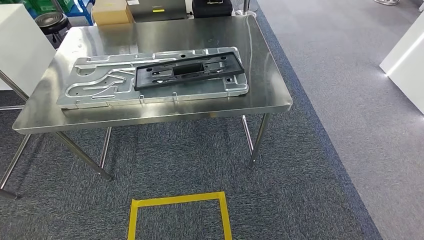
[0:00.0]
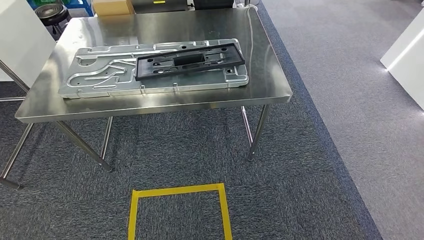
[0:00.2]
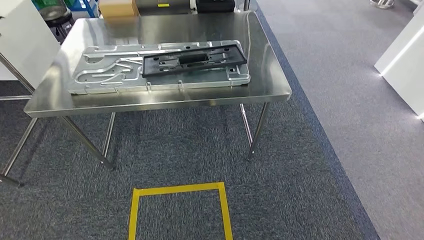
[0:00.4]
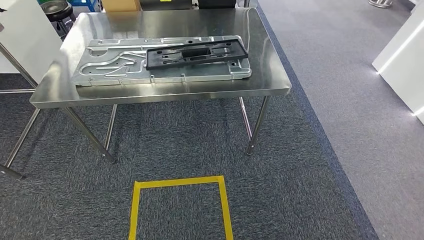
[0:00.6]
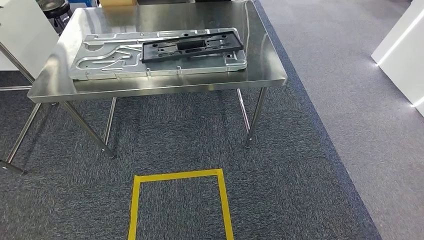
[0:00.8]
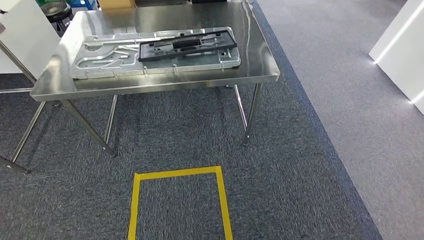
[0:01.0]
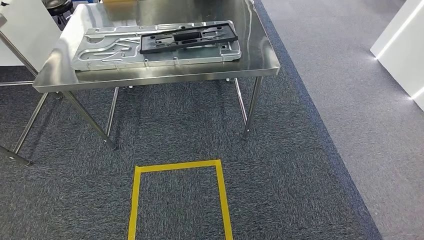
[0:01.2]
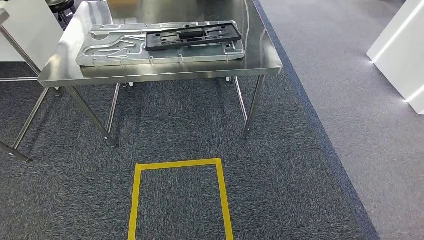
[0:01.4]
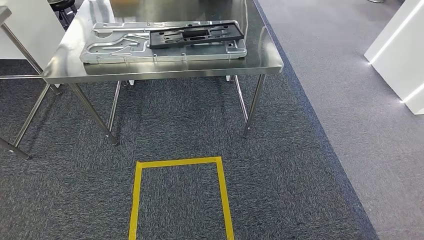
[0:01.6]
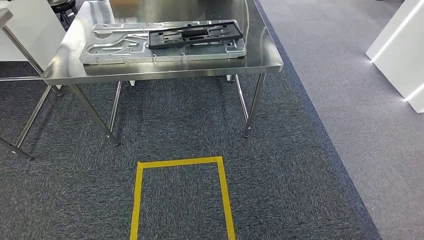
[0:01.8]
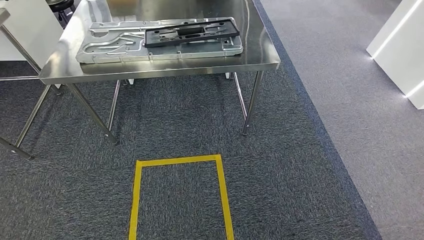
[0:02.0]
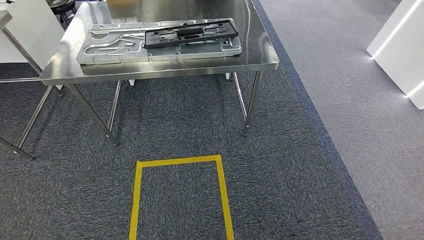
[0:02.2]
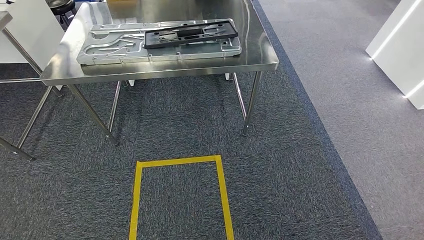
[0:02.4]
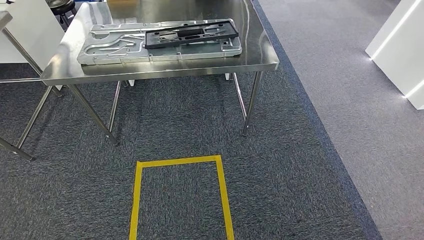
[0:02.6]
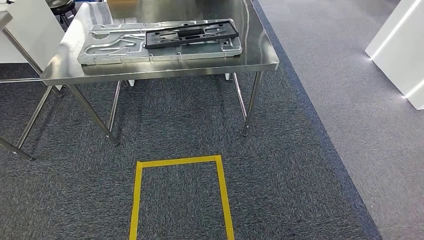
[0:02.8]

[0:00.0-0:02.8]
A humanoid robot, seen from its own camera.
Step, 0:00.0 to 0:02.8: Return to the initial position at the shelf.
0:01.4 to 0:02.8: The hands move only a little.

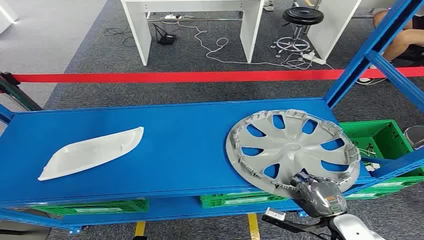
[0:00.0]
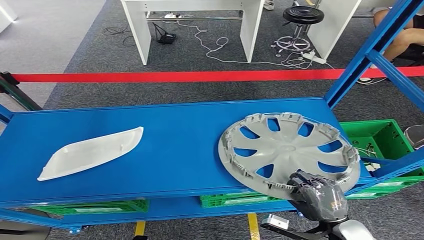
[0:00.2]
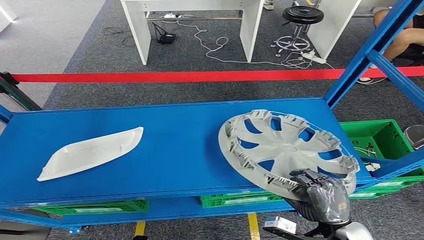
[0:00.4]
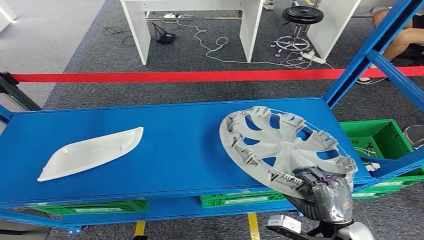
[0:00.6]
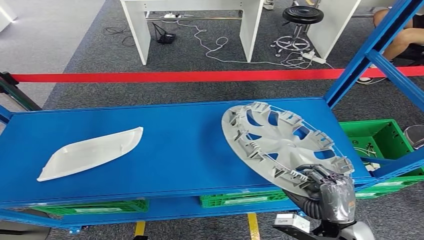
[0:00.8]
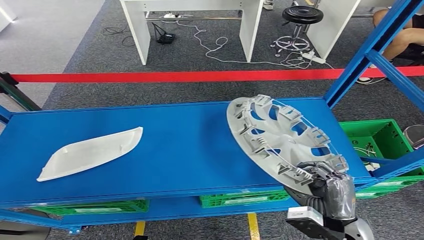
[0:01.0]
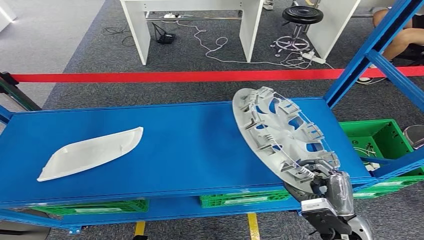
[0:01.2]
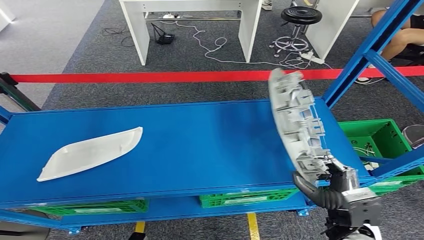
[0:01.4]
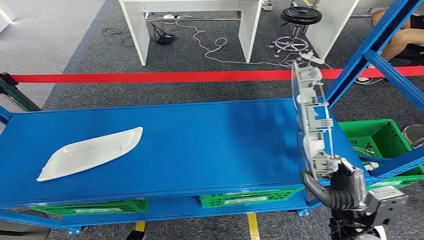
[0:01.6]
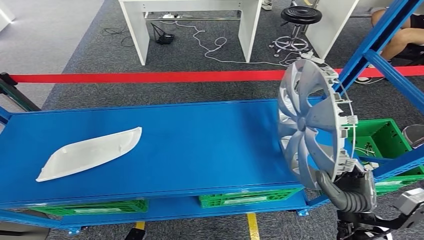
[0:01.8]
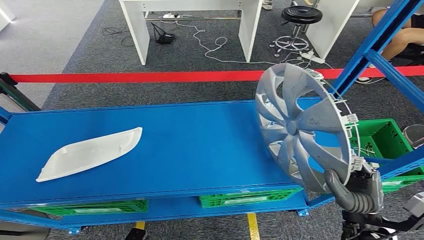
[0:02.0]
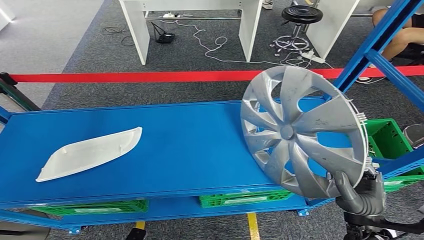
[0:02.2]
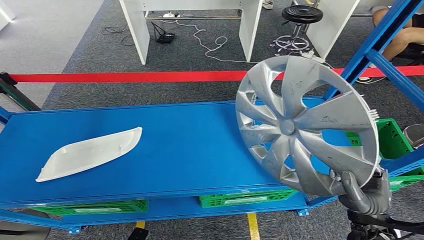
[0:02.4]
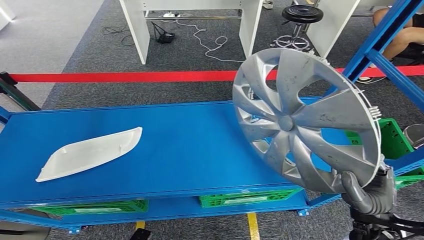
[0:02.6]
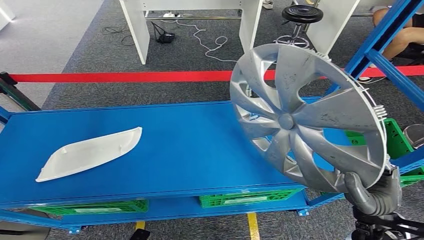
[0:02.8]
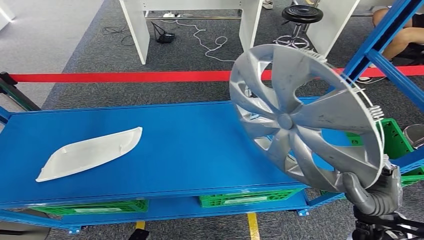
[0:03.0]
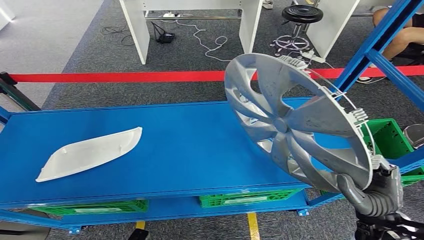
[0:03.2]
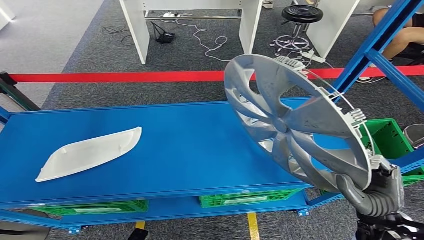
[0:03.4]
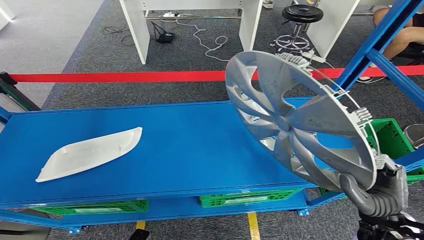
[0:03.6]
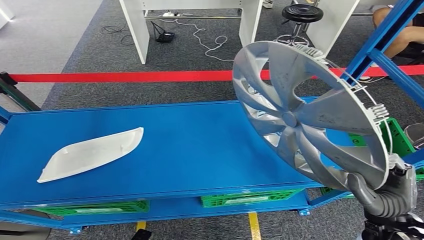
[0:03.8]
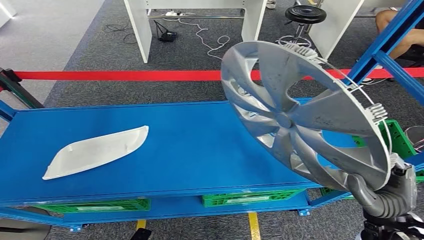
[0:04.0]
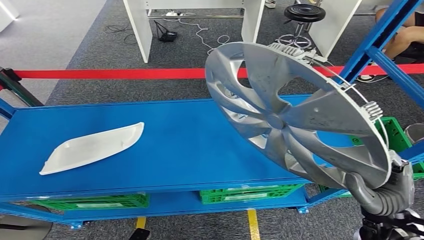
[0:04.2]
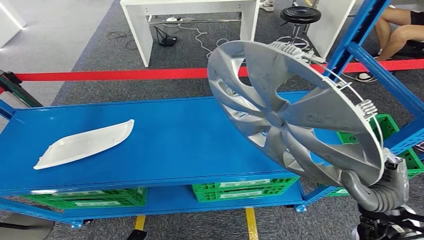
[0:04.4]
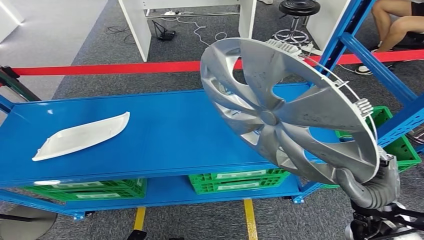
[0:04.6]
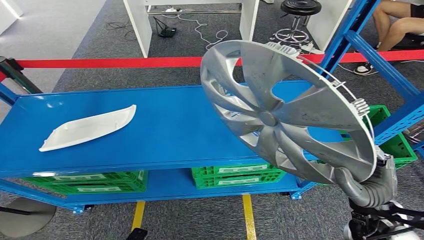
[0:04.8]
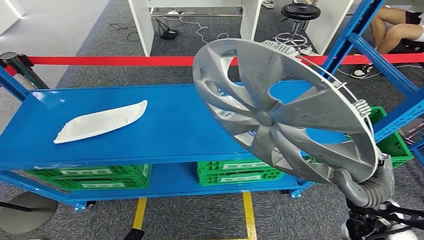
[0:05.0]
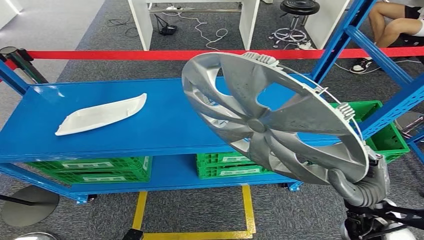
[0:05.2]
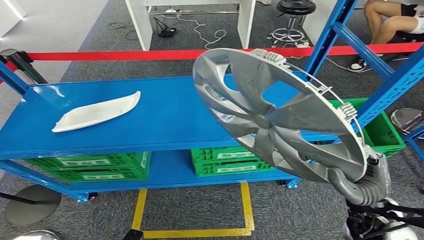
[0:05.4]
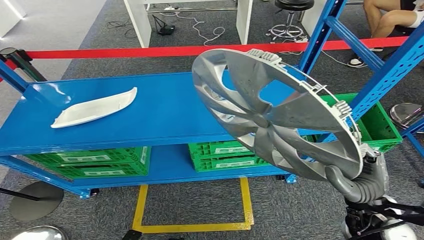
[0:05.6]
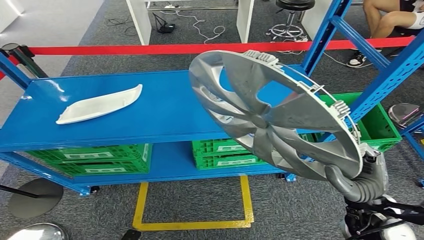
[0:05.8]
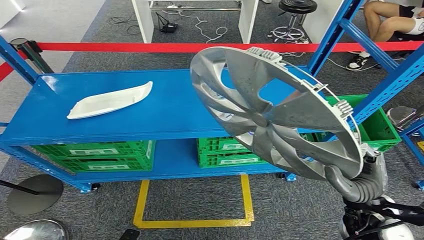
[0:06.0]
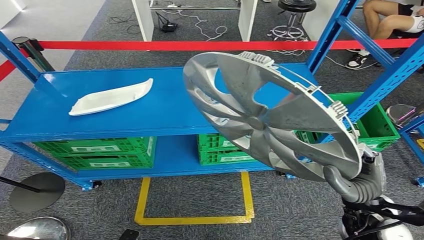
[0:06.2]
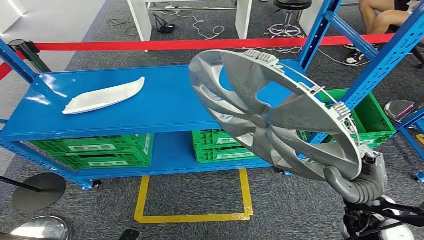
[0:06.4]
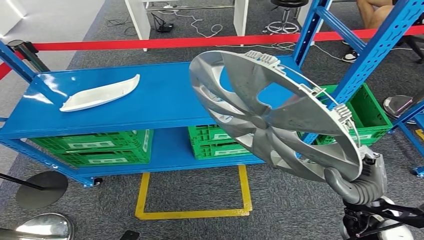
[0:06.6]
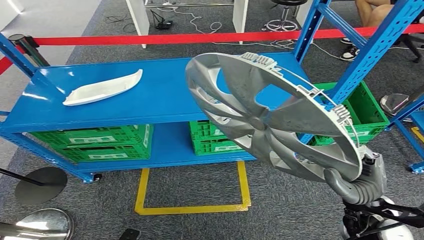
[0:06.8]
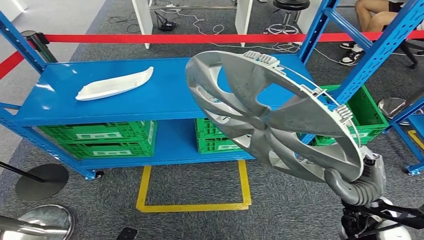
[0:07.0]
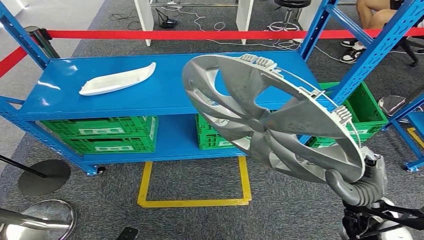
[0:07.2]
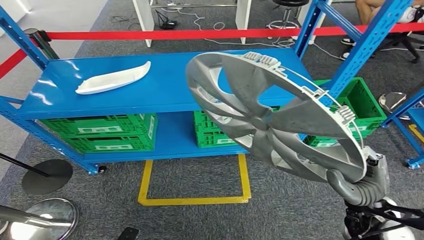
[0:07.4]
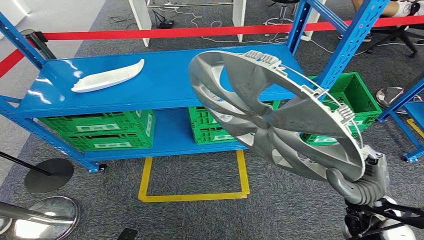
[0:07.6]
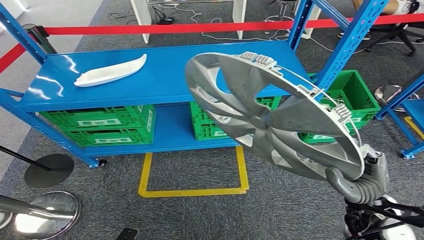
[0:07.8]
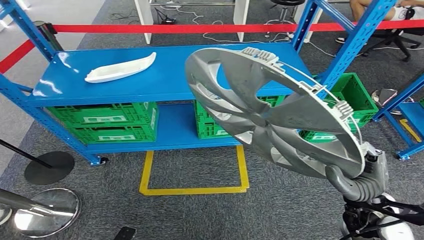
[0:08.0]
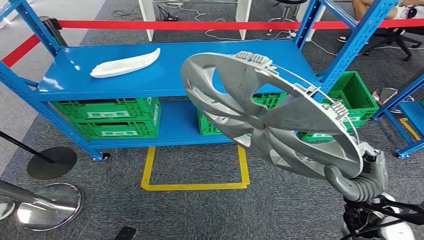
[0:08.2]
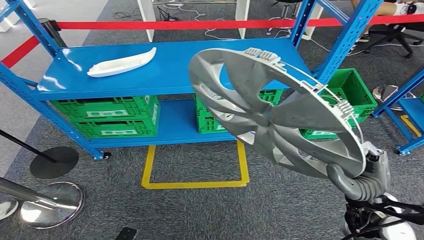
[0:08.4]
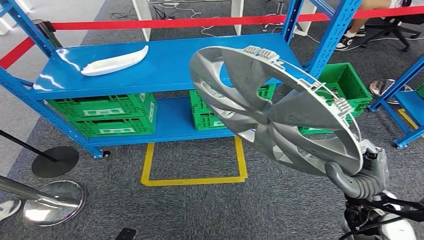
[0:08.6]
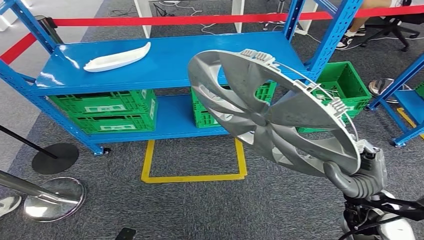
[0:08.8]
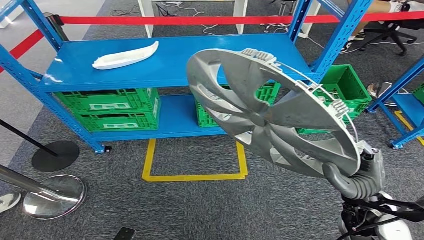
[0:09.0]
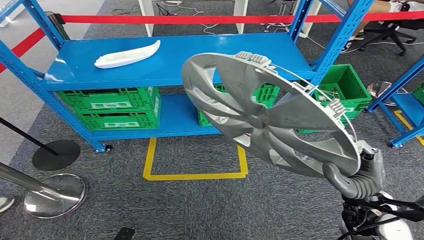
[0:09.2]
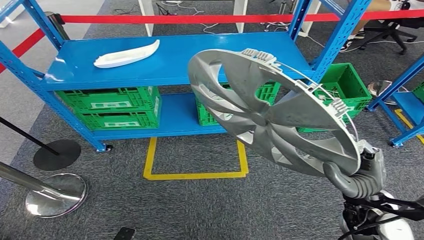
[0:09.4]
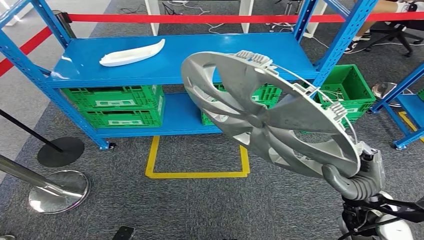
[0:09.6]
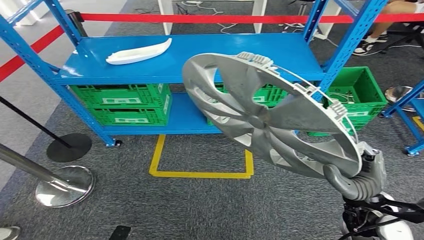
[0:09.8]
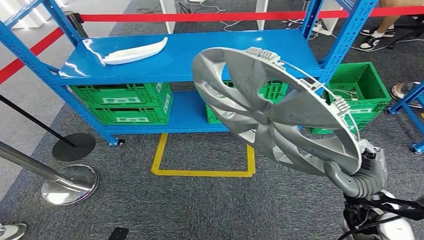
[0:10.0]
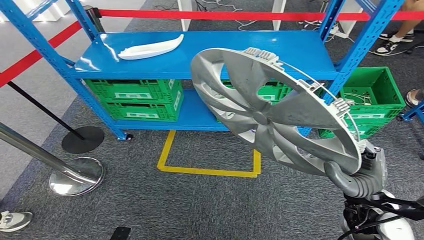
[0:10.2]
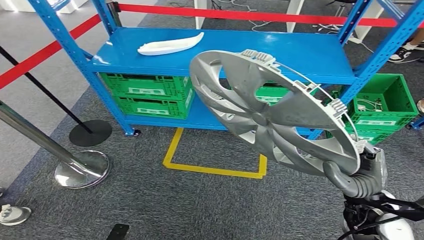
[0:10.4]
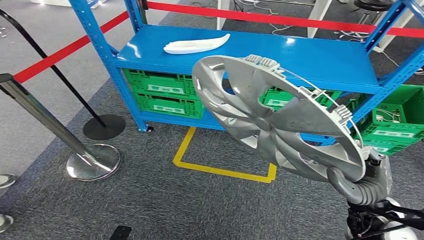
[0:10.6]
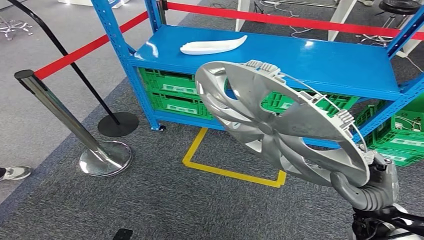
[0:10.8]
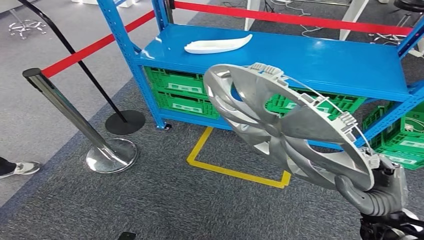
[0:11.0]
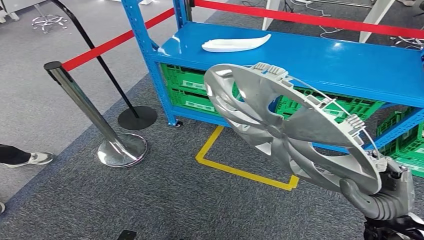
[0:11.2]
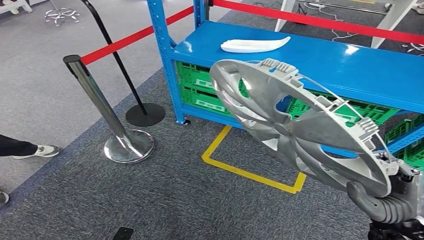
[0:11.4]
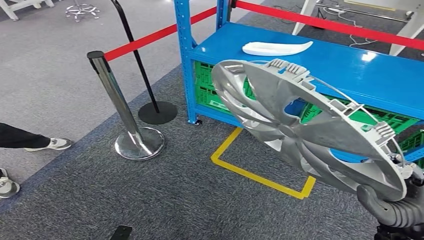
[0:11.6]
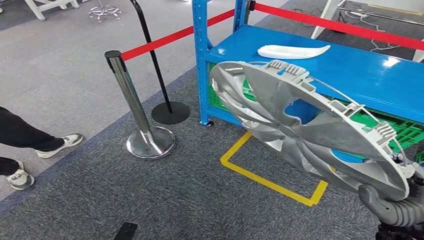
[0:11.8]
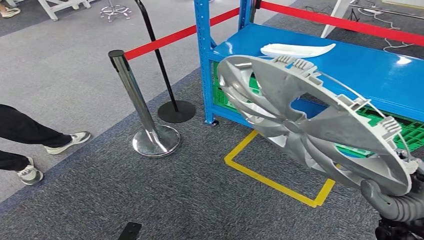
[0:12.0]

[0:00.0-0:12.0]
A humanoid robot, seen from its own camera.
Step, 0:00.0 to 0:04.2: Pick up the small parts from the shelf.
0:01.6 to 0:03.0: The right hand shifts by roughly 5 cm.

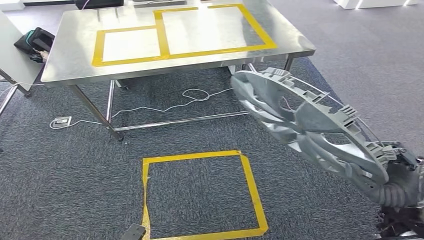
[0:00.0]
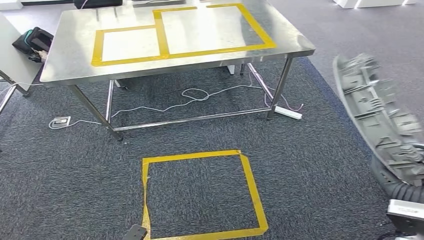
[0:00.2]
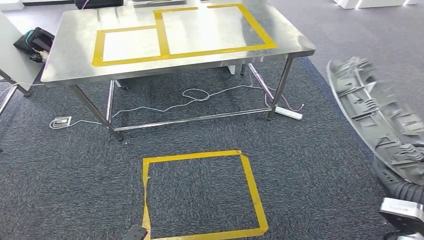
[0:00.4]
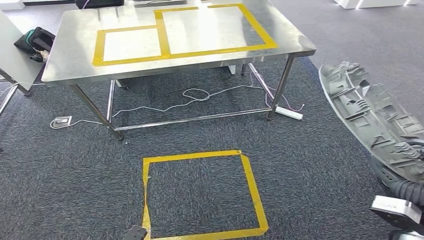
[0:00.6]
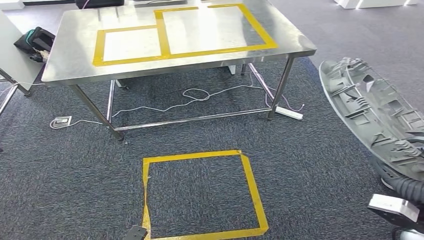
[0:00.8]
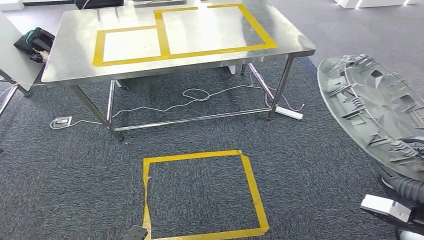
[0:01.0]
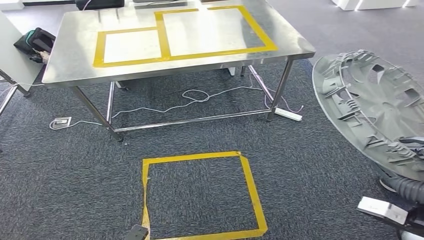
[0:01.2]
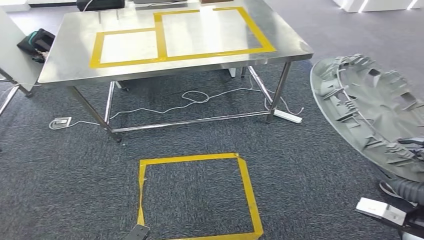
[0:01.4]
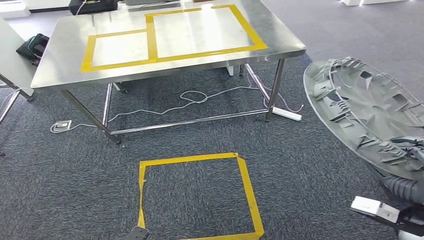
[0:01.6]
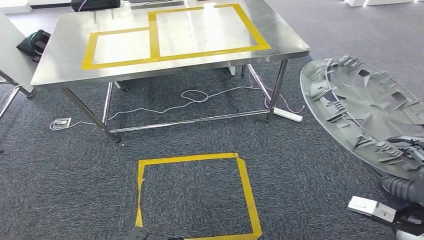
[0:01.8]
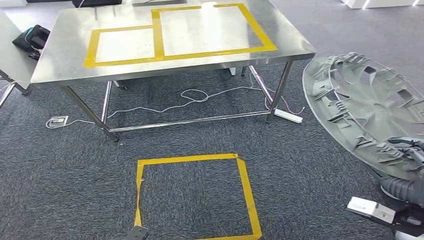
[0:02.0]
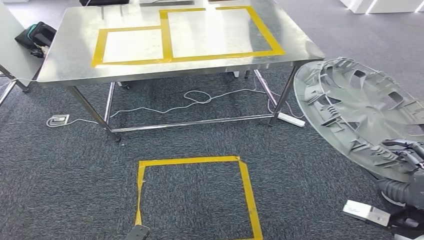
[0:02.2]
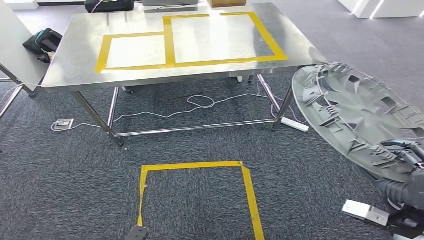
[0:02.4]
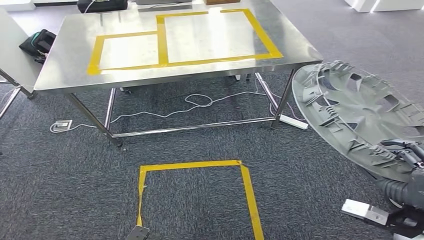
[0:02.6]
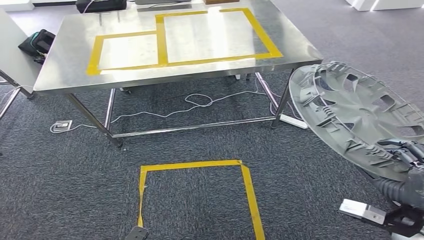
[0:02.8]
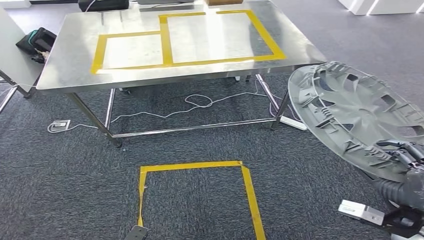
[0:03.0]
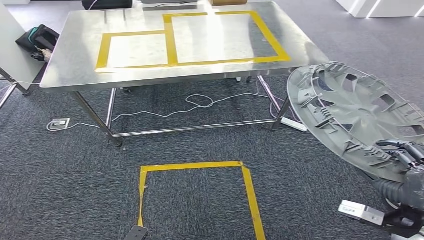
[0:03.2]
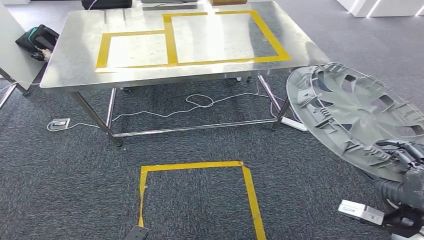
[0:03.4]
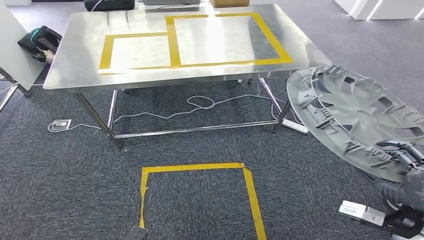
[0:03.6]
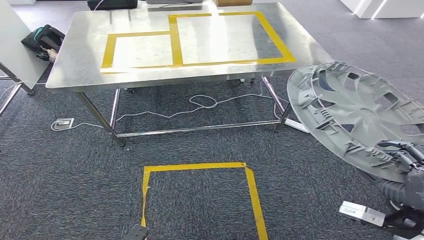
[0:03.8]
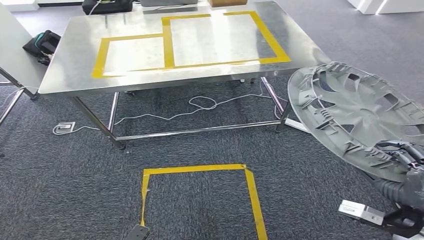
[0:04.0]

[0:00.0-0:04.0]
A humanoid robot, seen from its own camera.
Step, 0:00.0 to 0:03.2: Move the small parts to the workbench.
0:02.6 to 0:04.0: Both hands stay about where they are.
